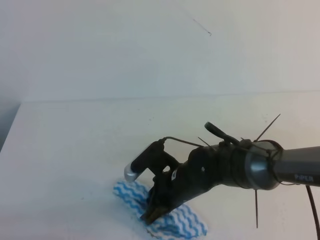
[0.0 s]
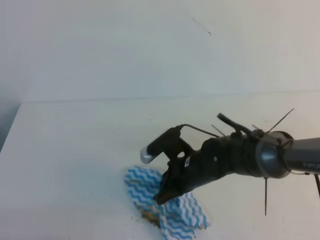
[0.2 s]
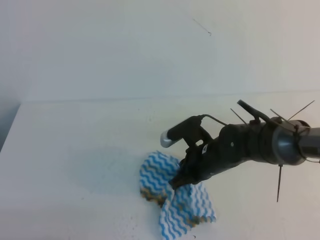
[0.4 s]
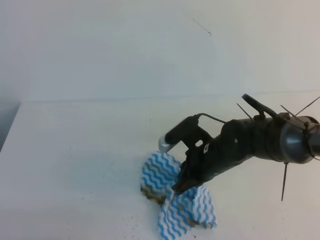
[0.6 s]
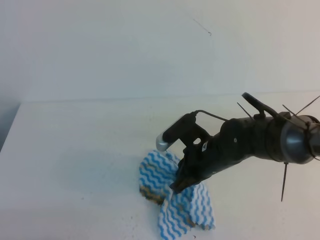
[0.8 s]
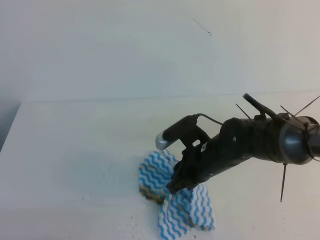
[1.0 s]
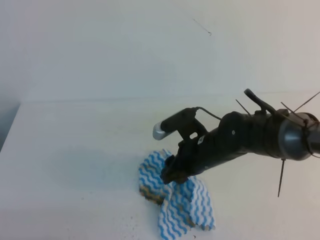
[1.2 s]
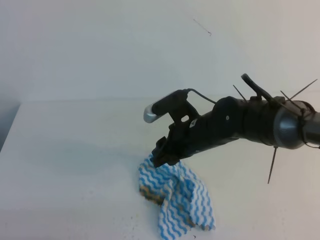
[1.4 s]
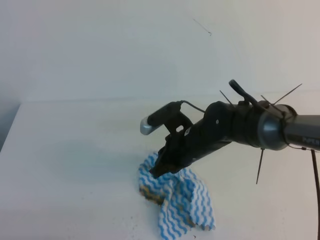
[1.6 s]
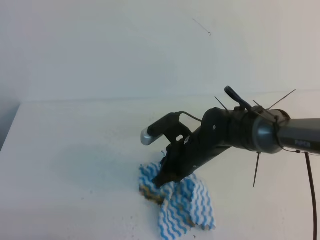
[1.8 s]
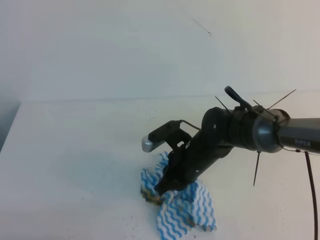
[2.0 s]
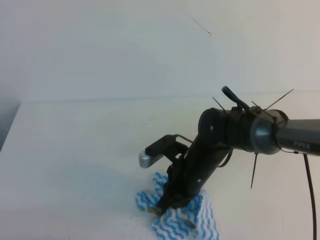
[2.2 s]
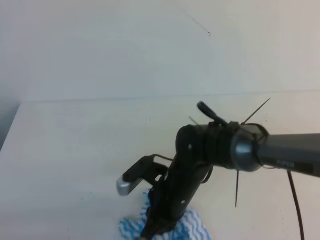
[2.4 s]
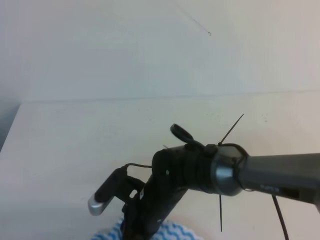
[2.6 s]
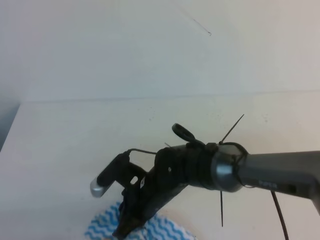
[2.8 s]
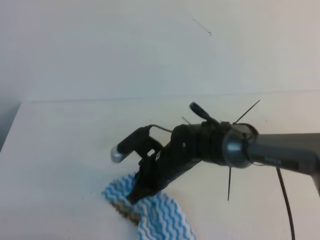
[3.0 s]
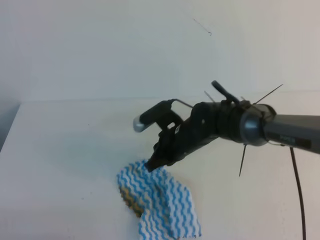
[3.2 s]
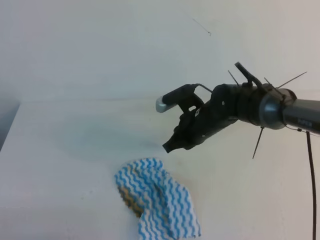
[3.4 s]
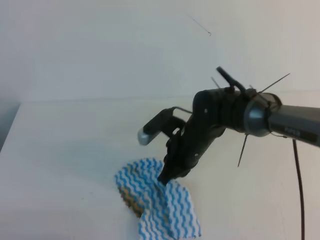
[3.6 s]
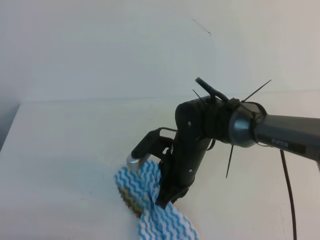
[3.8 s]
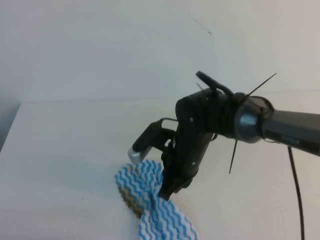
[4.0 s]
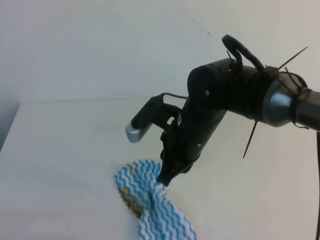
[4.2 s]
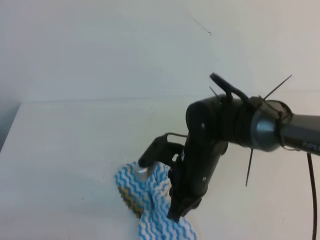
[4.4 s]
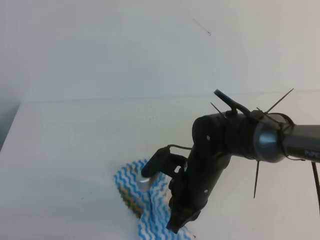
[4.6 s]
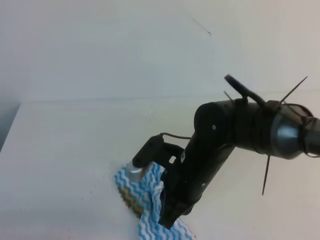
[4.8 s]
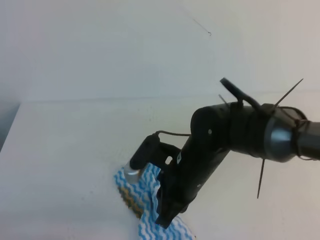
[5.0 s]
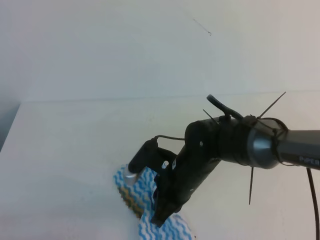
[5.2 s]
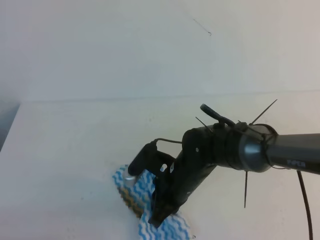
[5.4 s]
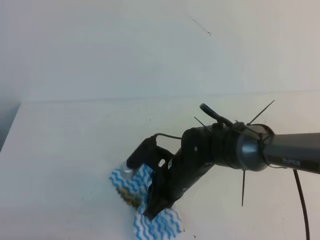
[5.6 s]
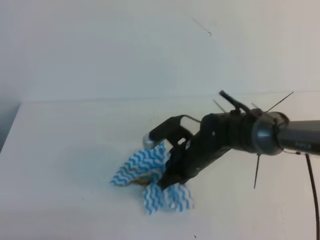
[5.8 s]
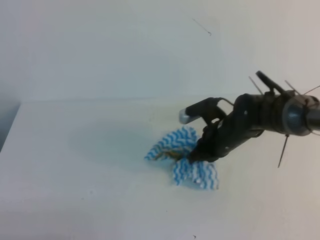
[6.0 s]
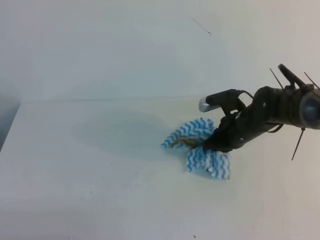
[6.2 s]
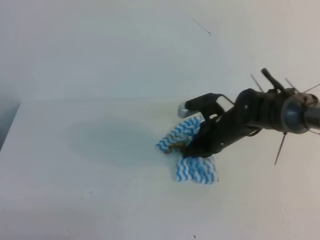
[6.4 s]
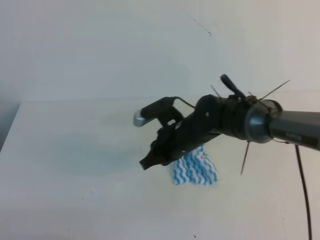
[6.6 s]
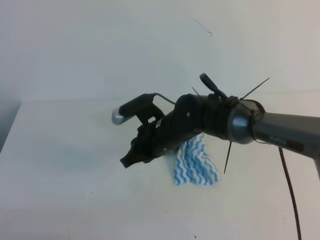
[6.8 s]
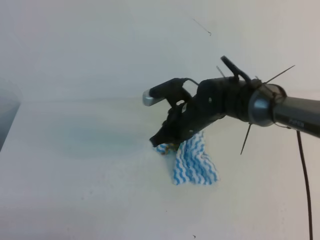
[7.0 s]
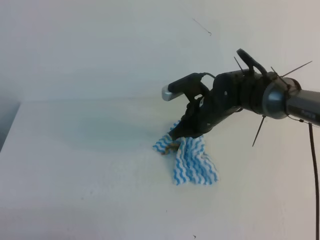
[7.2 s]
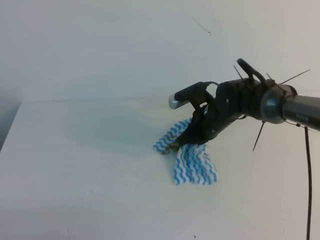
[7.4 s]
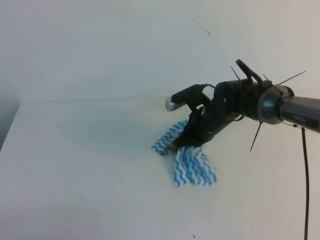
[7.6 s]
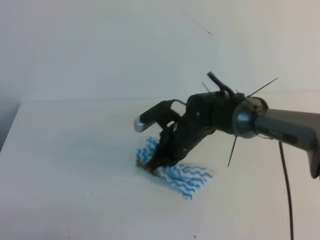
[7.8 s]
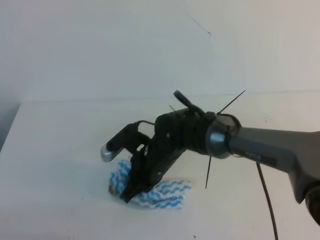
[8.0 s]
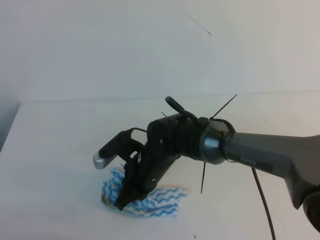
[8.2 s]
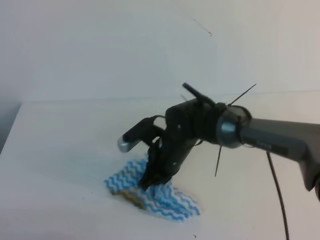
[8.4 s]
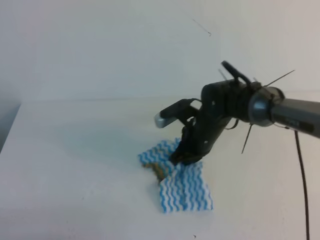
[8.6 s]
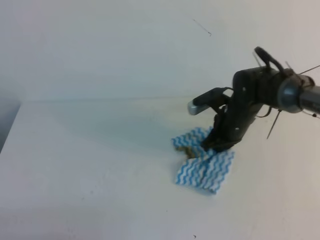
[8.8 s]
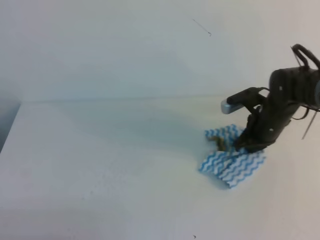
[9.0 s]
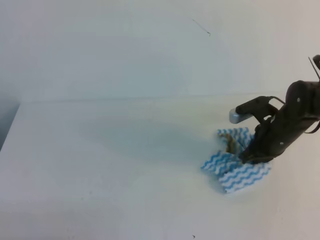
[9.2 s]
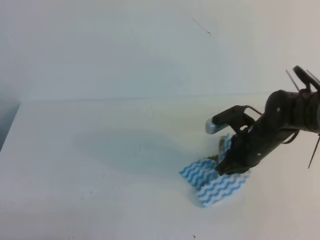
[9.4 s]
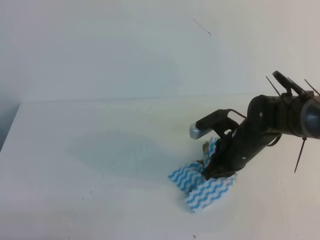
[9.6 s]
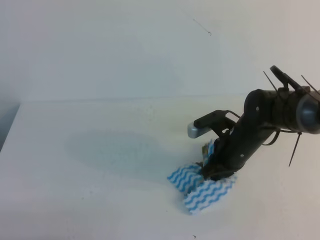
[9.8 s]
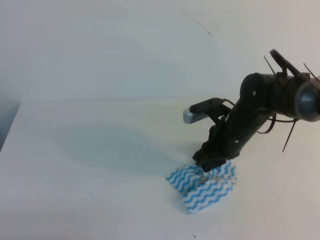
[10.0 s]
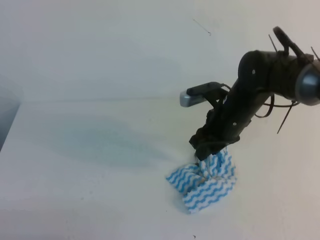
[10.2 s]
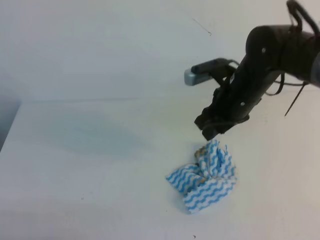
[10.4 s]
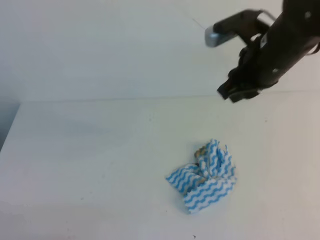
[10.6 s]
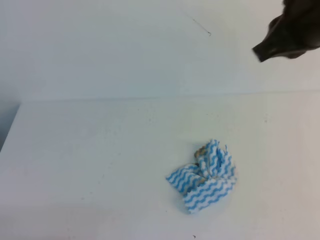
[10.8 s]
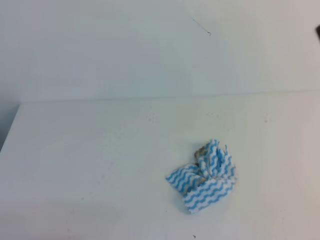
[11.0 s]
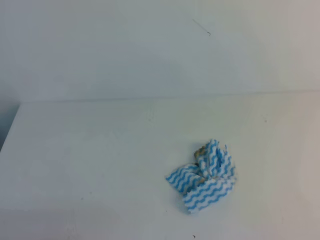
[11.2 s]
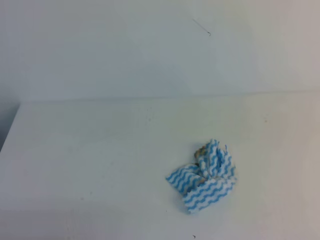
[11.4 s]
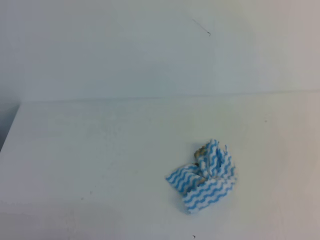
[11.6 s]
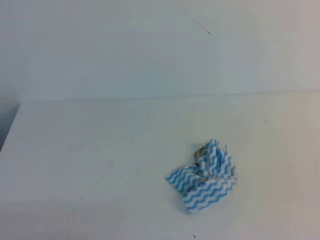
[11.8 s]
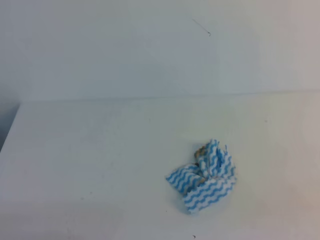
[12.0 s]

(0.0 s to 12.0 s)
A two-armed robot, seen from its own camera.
0.0 s - 1.6 s: The right gripper travels forward by approximately 5 cm, and opens, then closes again.
1.6 s - 3.0 s: The right gripper heads to the left, covering about 5 cm.
3.0 s - 4.4 s: The right gripper reaches roughly 5 cm forward, then returns.
4.4 s - 6.0 s: The right gripper moves forward, to the right and downward, approximately 10 cm.
6.0 s - 7.6 s: The right gripper moves some 10 cm to the left and comes back.
7.6 s - 9.0 s: The right gripper travels to the right by roughly 10 cm.
9.0 s - 10.4 s: The right gripper is displaced upward and to the left by some 15 cm, and opens up.
10.4 s - 12.0 s: The right gripper shifts some 35 cm backward and to the right, and closes up.
